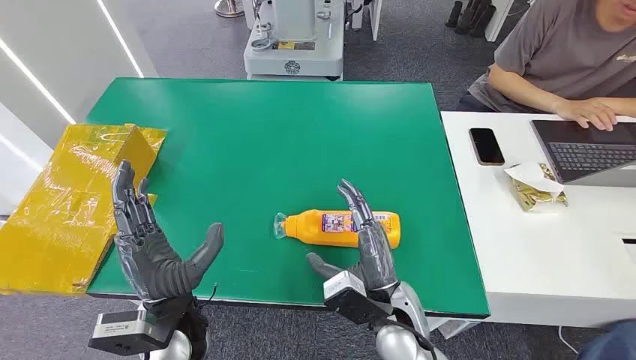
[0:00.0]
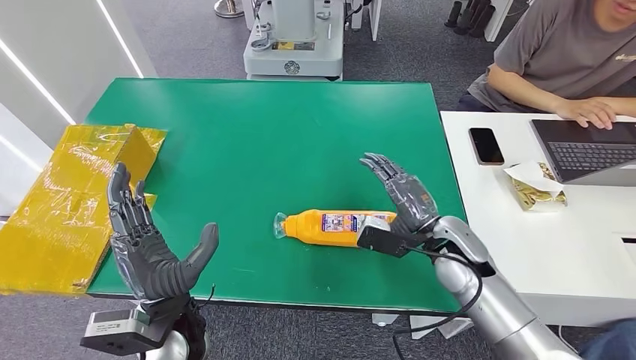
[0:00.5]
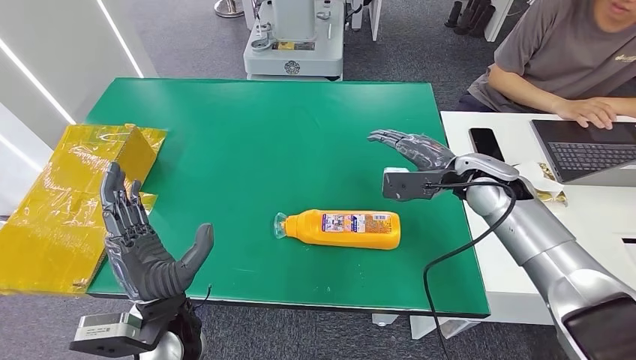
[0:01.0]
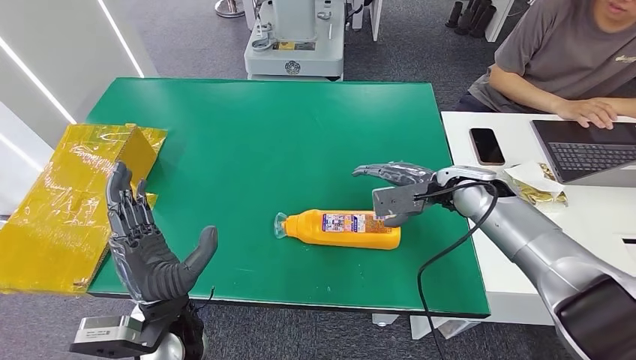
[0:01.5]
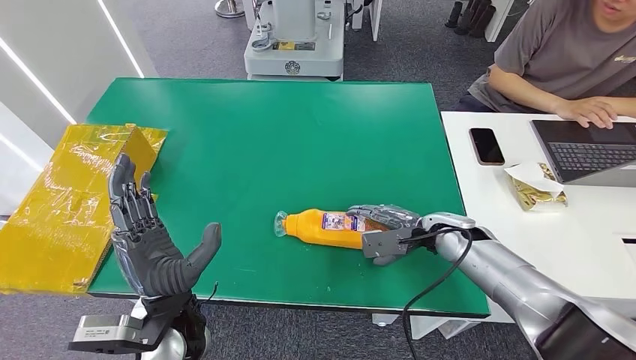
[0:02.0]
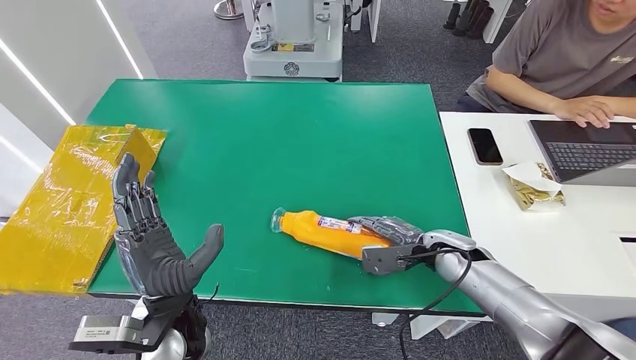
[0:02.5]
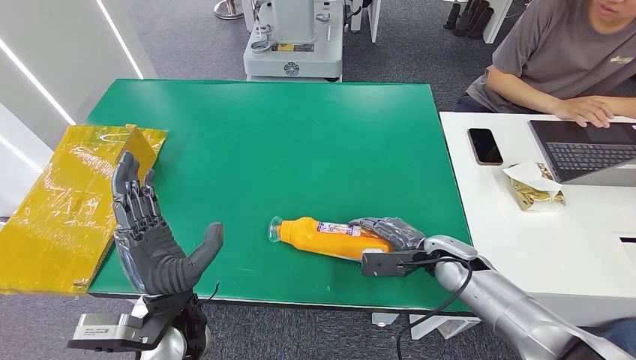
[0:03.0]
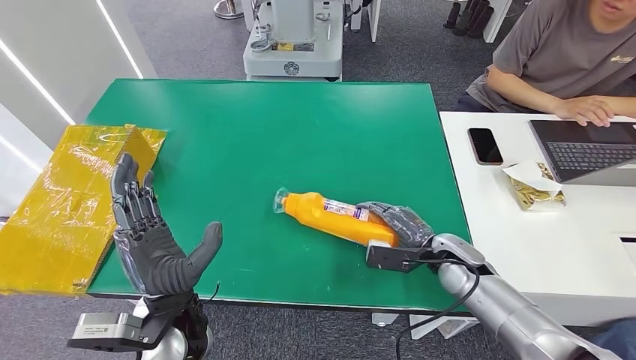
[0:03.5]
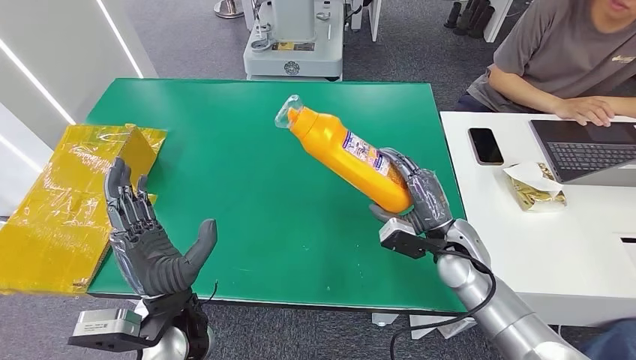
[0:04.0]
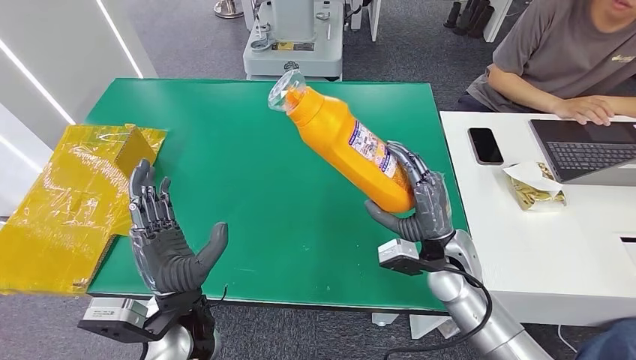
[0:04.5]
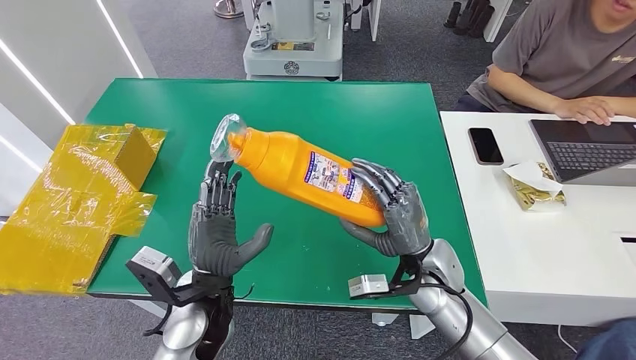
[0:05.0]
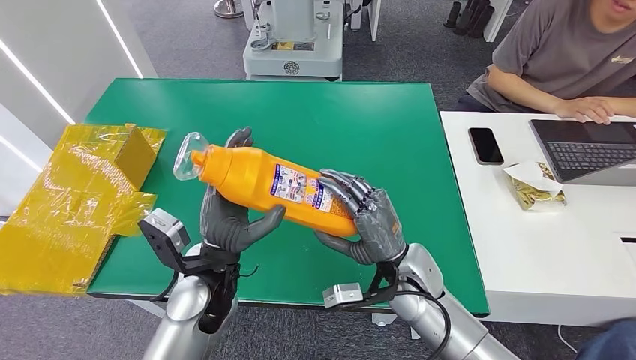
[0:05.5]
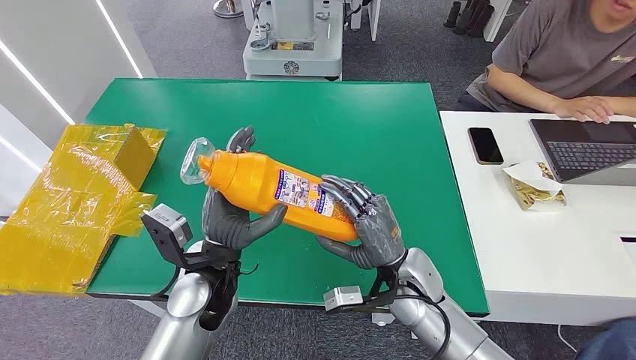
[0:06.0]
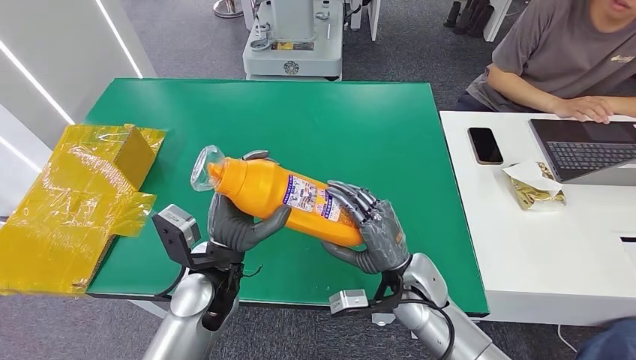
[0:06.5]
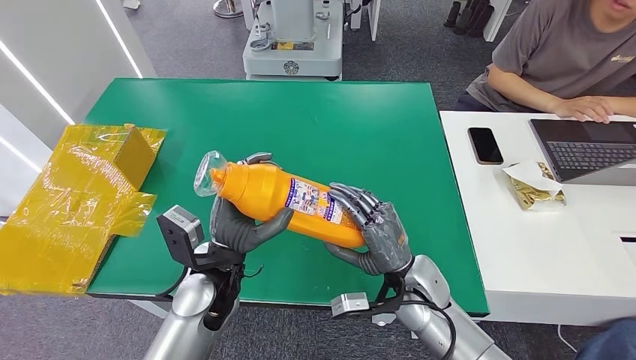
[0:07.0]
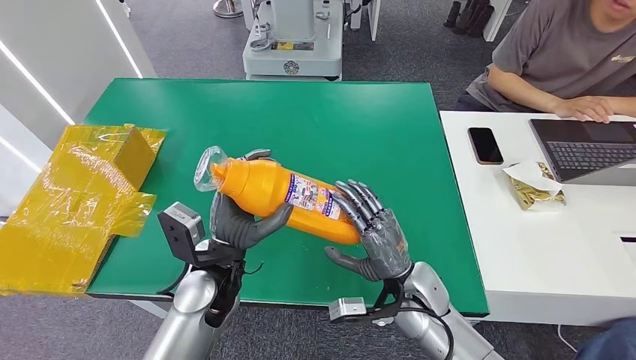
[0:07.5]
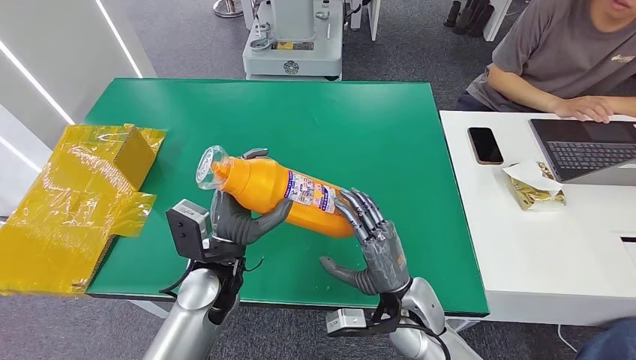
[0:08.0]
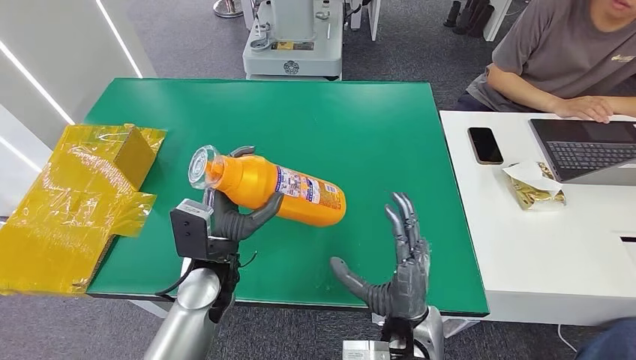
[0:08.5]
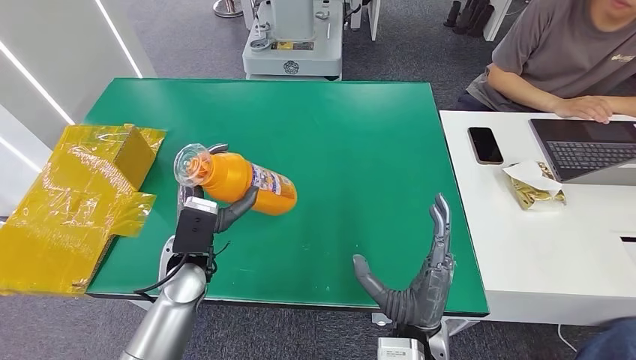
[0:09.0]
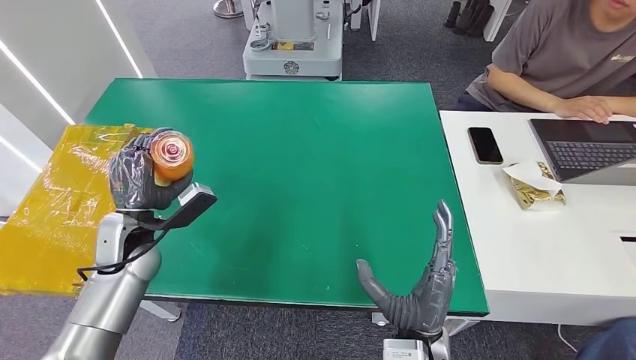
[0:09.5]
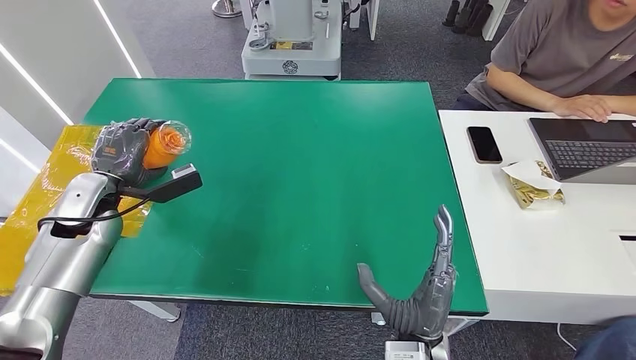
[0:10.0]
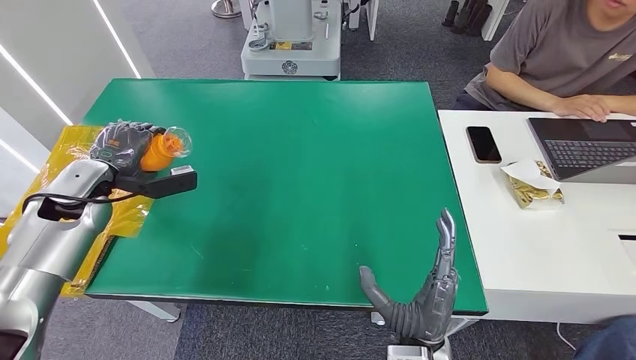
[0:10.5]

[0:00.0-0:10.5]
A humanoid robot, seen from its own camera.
Step, 0:00.0 to 0:04.5: Pick up the bottle from the table.
0:06.5 to 0:08.5: The right hand moves backward, some 10 cm.

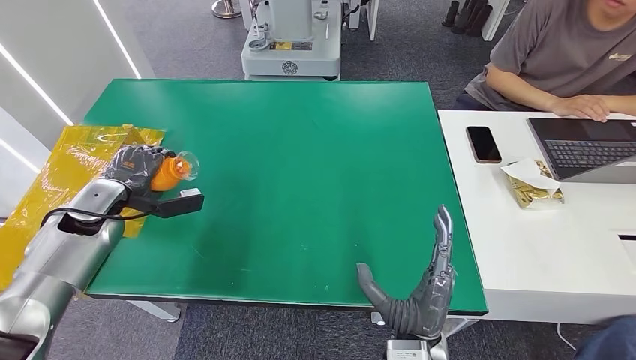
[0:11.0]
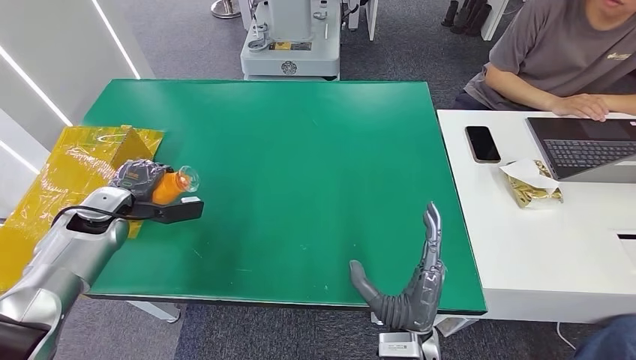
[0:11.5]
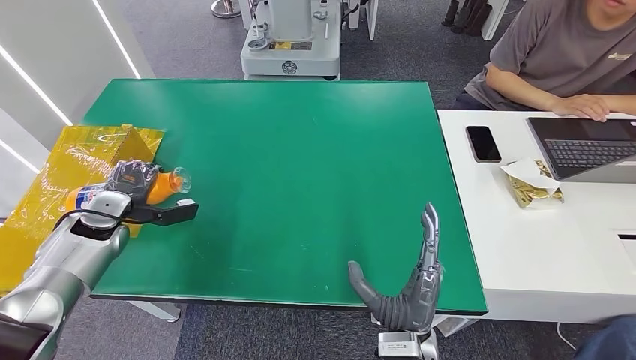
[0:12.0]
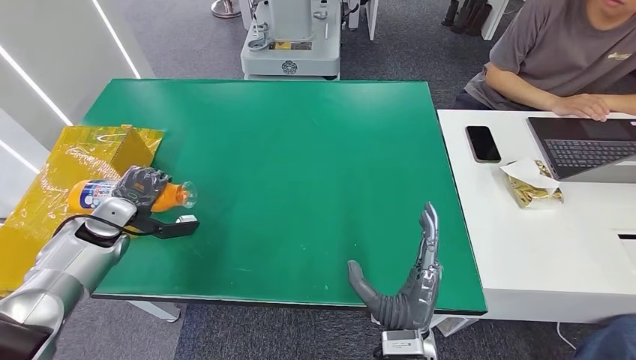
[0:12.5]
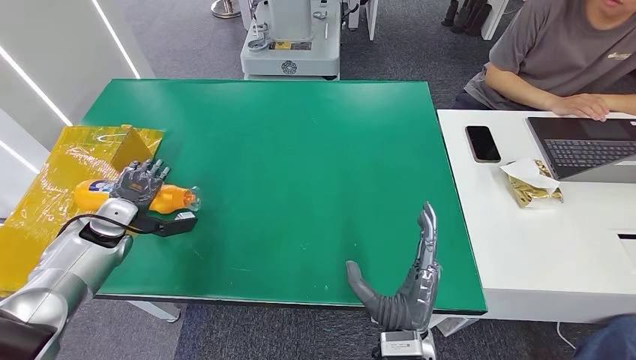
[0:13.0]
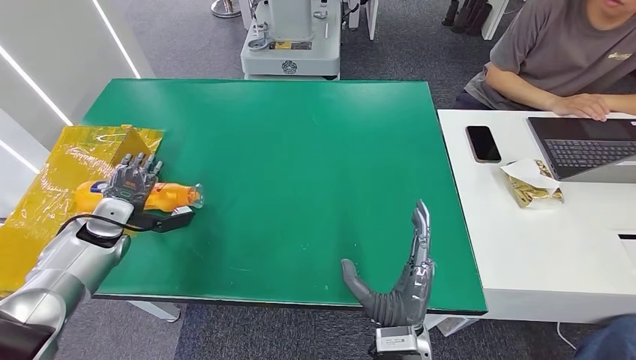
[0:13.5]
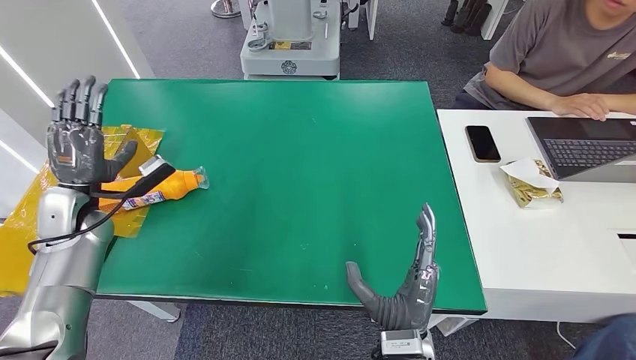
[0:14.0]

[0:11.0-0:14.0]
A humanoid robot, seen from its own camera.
Step, 0:11.0 to 0:14.0: Turn the bottle to the front side.
0:11.0 to 0:12.5: There are only small adjustments of the hands.
0:12.5 to 0:14.0: The left hand moves approximately 5 cm.
